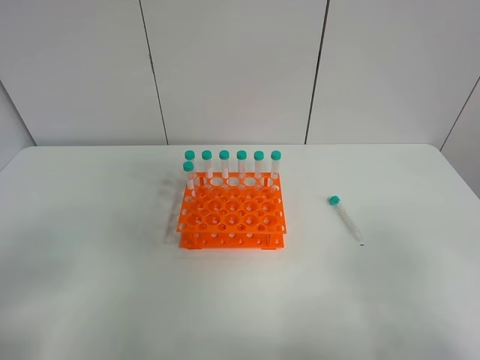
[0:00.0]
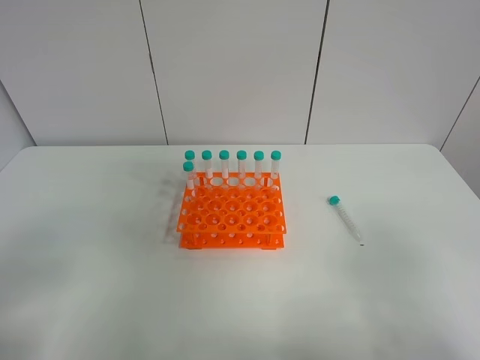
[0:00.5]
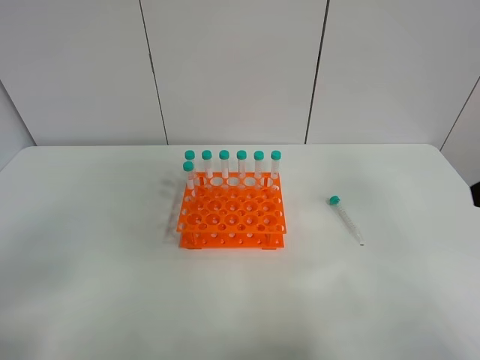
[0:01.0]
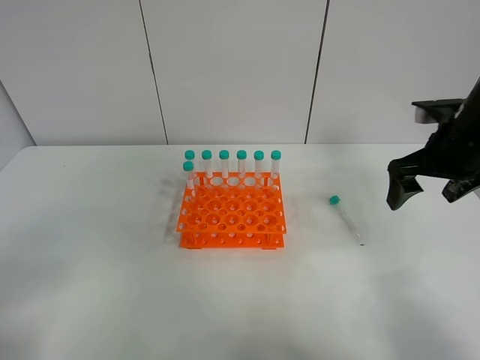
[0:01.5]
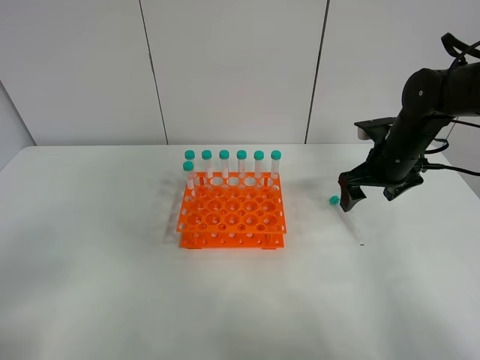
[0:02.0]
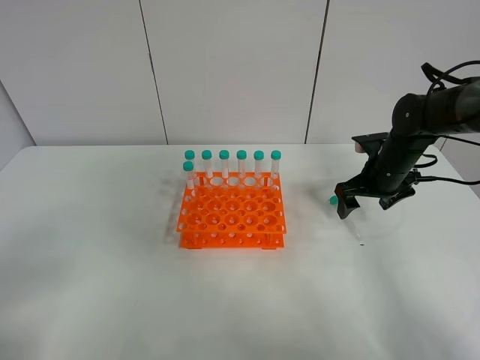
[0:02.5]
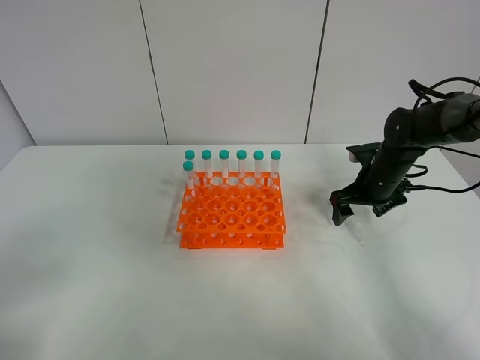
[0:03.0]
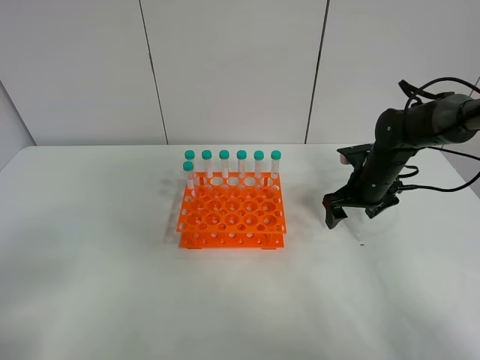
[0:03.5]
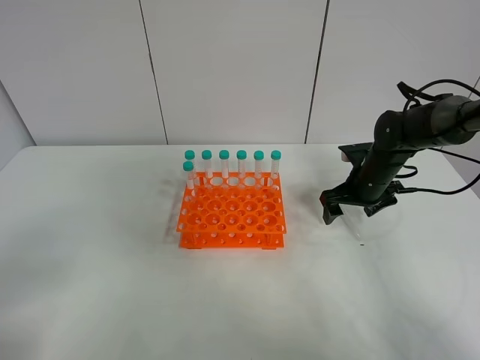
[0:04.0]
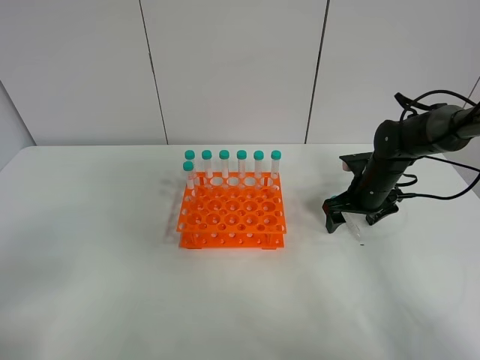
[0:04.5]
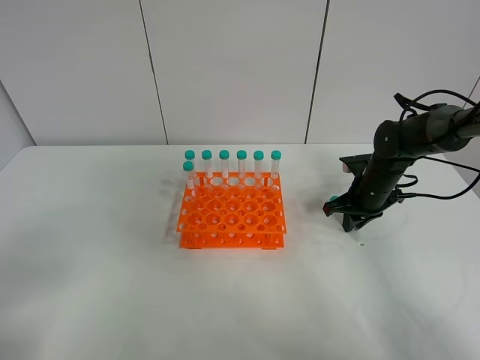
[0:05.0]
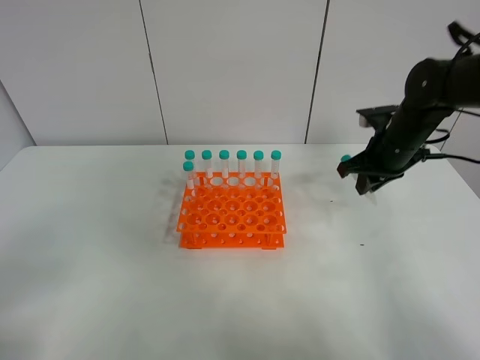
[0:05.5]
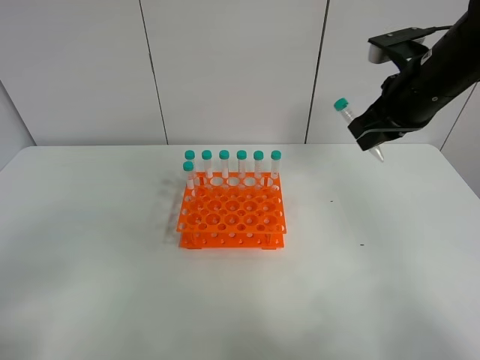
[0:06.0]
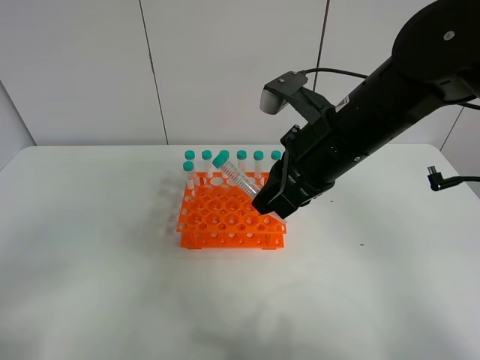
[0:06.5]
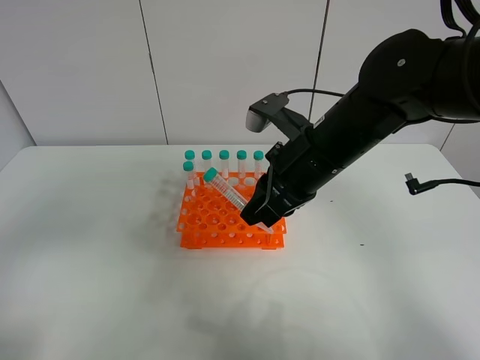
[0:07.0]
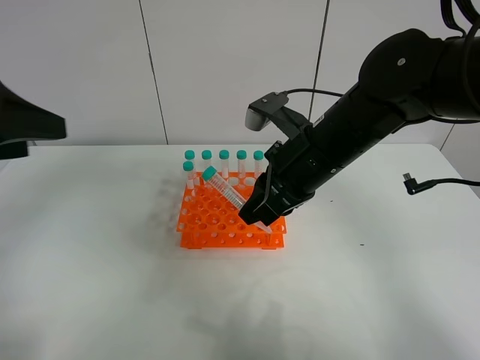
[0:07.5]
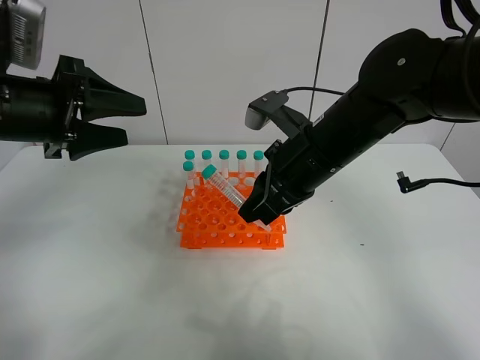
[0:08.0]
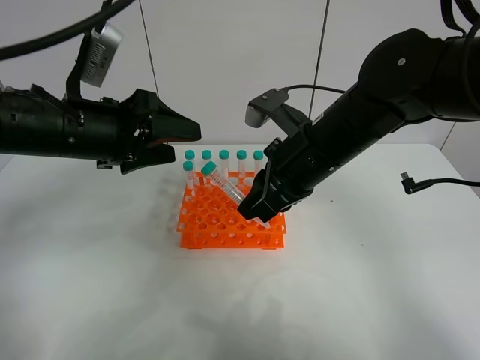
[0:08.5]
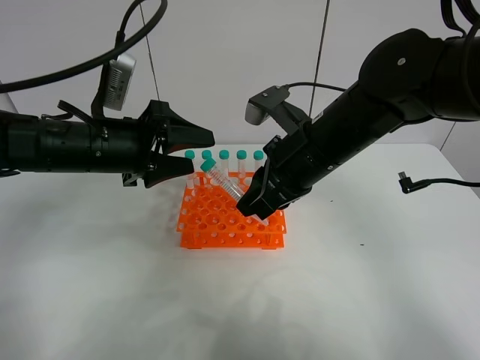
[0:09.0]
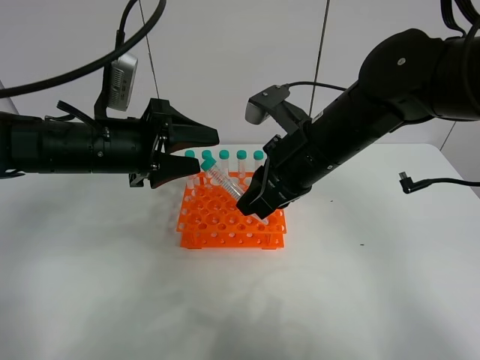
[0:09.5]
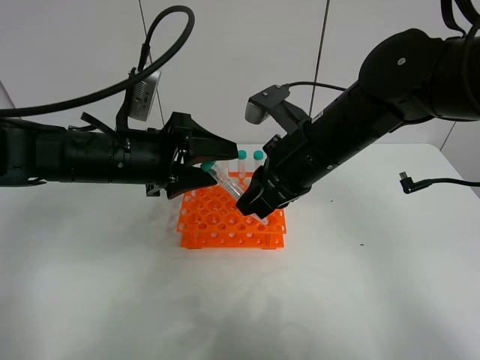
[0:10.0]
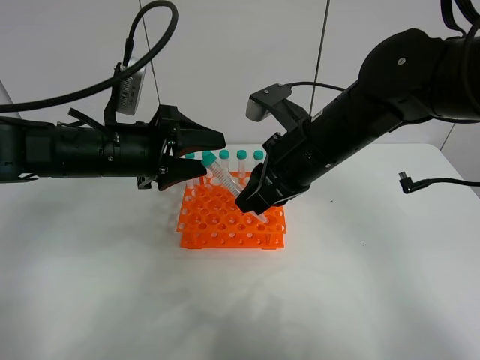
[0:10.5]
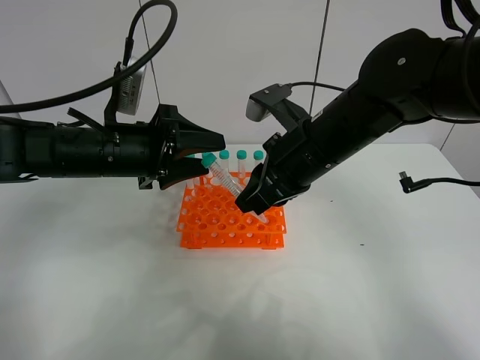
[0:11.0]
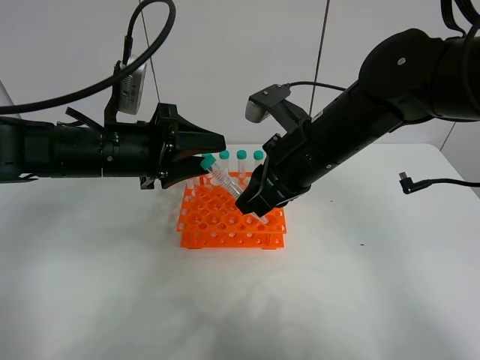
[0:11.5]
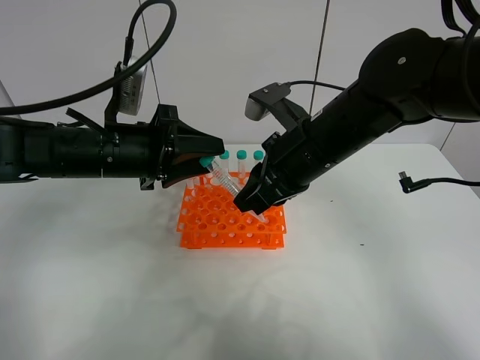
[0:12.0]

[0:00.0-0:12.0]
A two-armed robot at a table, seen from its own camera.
Task of the whole recording: Put the test tube on the table back onto the test tube rack.
Step, 0:00.0 to 0:05.5: Pick up the test tube with the right gripper.
0:00.0 to 0:02.0: The right gripper shifts roughly 40 cm forward.
0:02.0 to 0:04.0: The right gripper shifts approximately 5 cm downward.
0:04.0 to 0:06.0: The right gripper moves upward, about 20 cm, and closes up.
0:06.0 to 0:08.0: The left gripper goes approximately 25 cm forward. Meanwhile the right gripper travels to the left, backward and downward by some 15 cm.
0:08.0 to 0:10.0: The left gripper moves to the right and downward, roughly 10 cm.
0:10.0 to 0:12.0: The left gripper closes up.

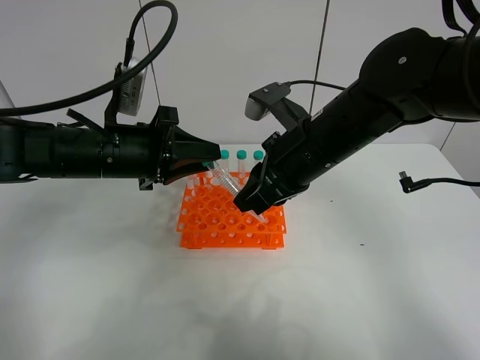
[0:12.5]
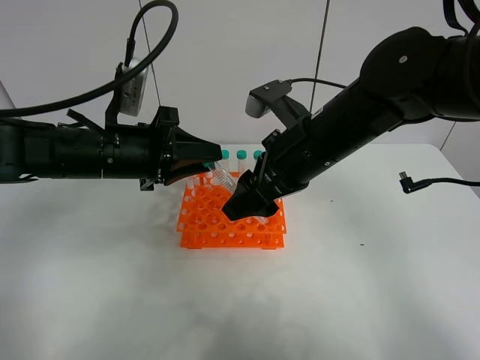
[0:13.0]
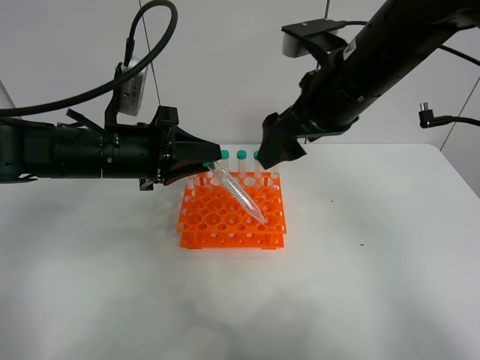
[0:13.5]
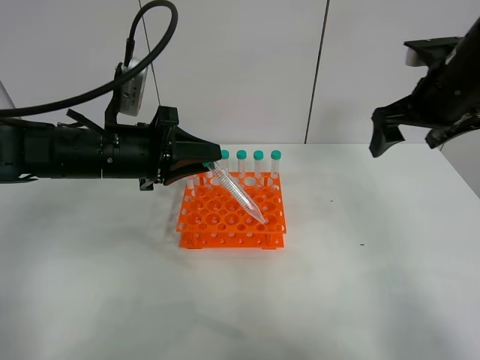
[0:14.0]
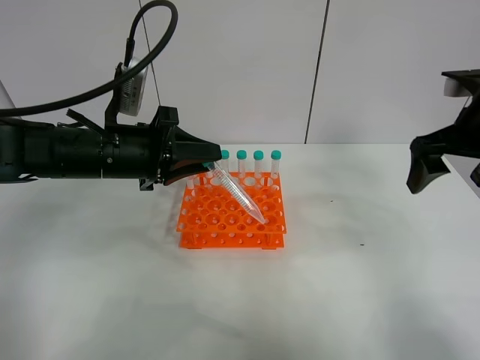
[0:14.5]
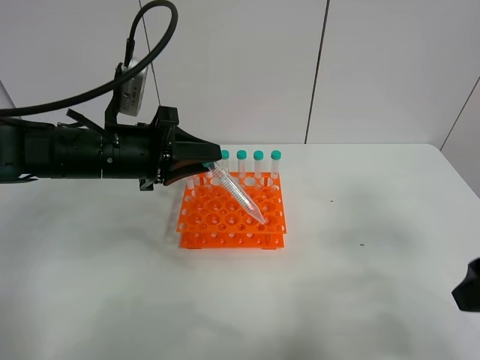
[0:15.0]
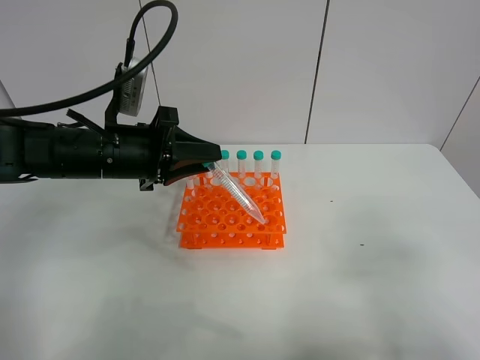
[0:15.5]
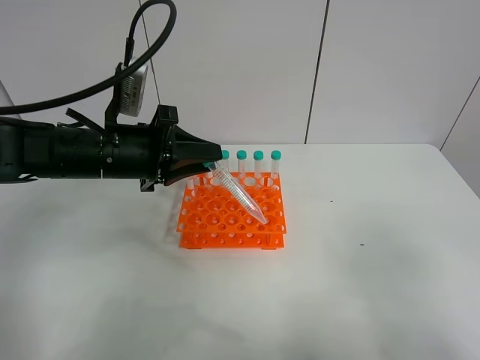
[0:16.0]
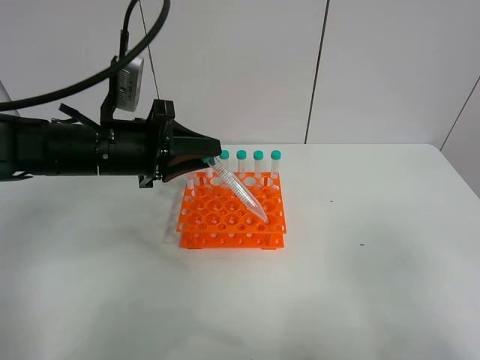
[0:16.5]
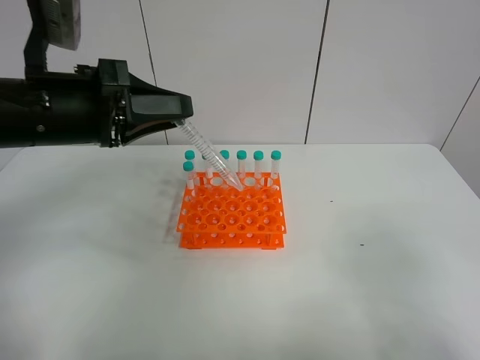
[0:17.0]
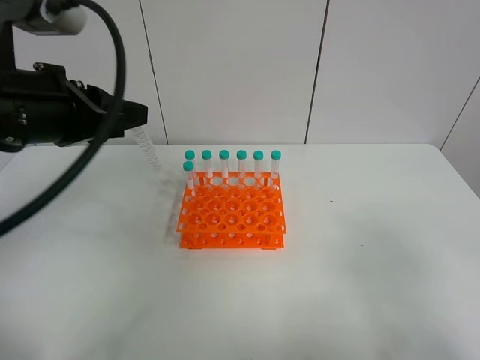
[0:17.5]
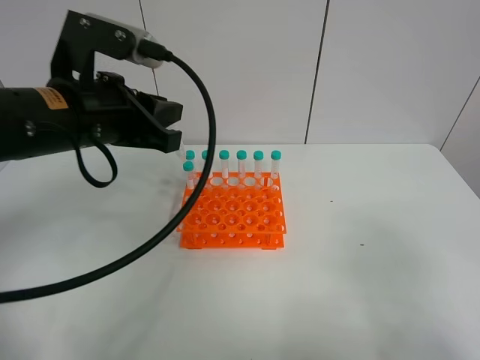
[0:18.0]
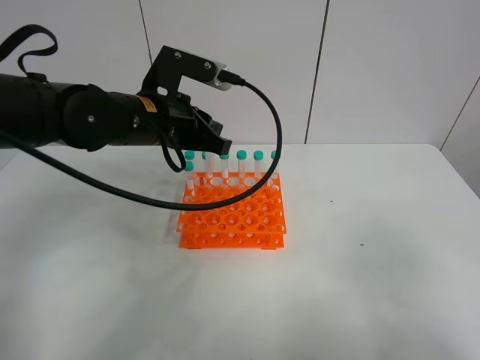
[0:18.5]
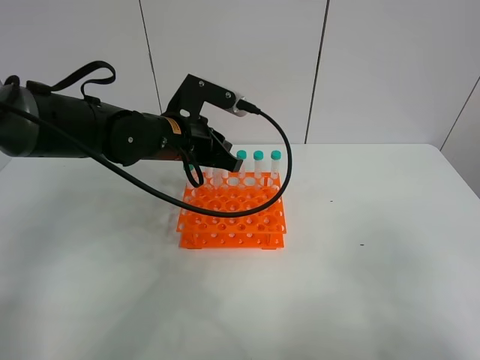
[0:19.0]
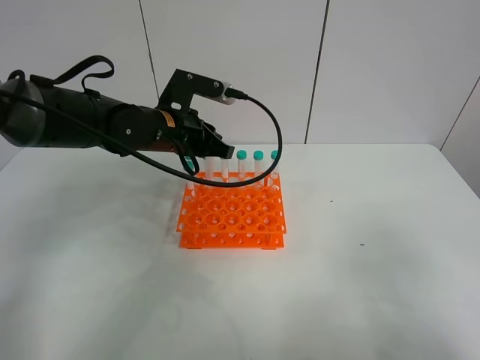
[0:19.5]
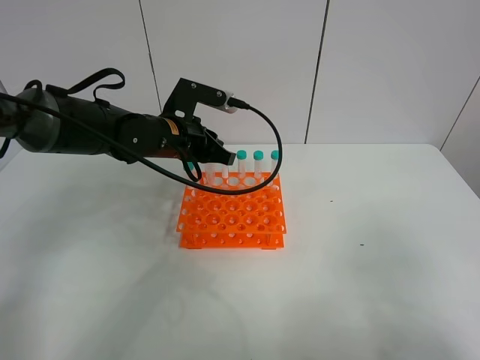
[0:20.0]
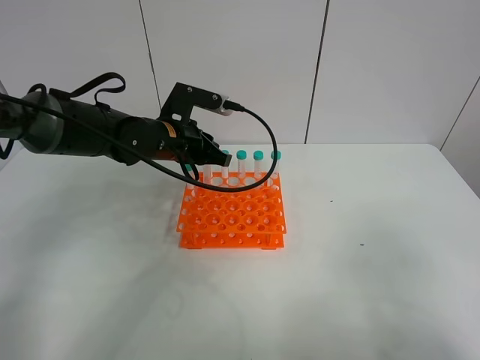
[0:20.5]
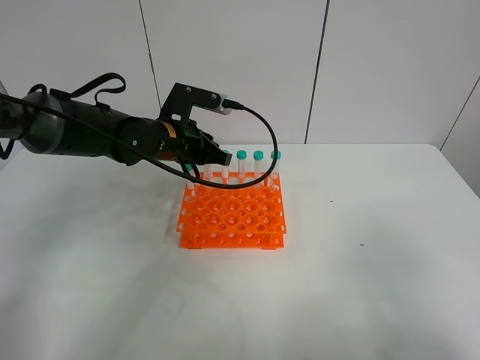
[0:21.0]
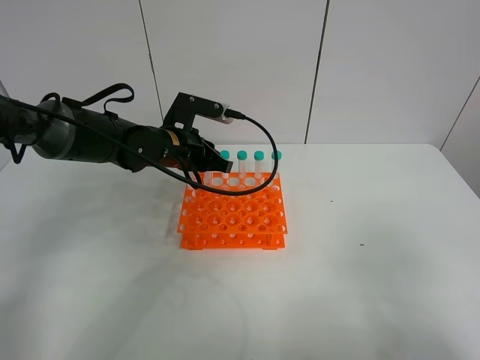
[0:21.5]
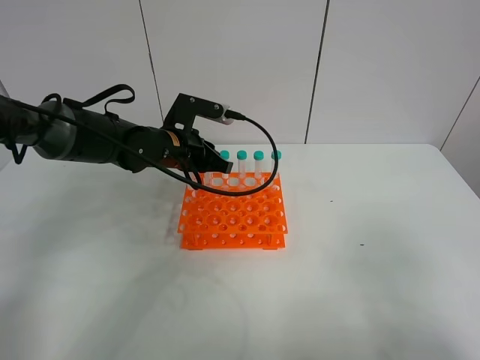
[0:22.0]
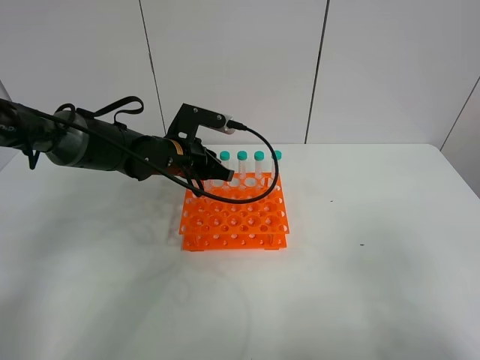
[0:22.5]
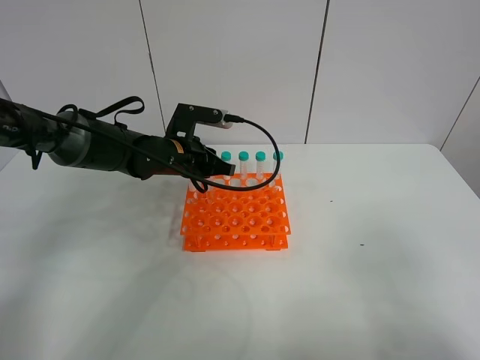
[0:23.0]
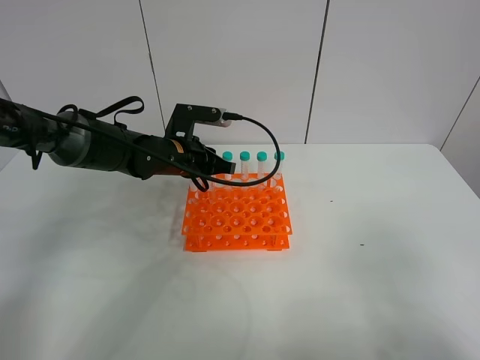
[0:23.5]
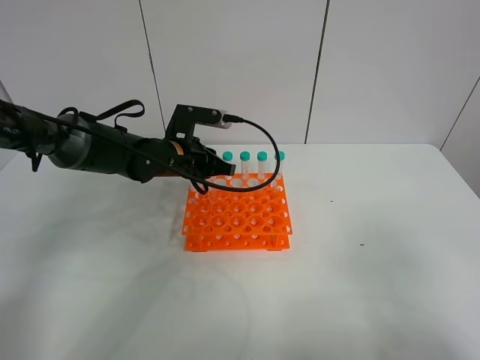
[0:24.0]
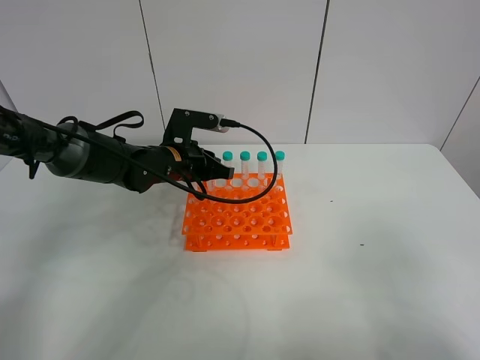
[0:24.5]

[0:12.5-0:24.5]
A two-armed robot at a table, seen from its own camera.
Task of the whole recording: Put the test tube on the table back onto the test tube rack.
0:12.5 to 0:14.5: The right gripper goes roughly 20 cm to the right, and opens.
0:14.5 to 0:16.5: The right gripper travels backward by about 30 cm.
0:16.5 to 0:18.5: The left gripper heads to the right, covering roughly 5 cm.
0:18.5 to 0:20.5: The left gripper travels downward and forward by approximately 10 cm.
0:20.5 to 0:24.5: There are only small adjustments of the grippers.

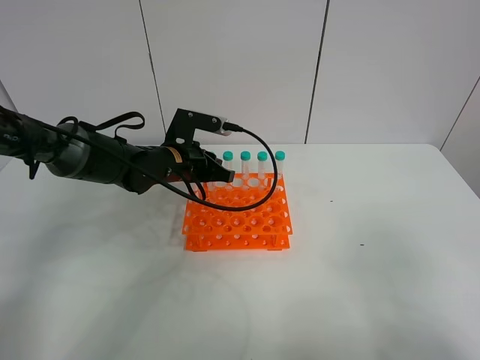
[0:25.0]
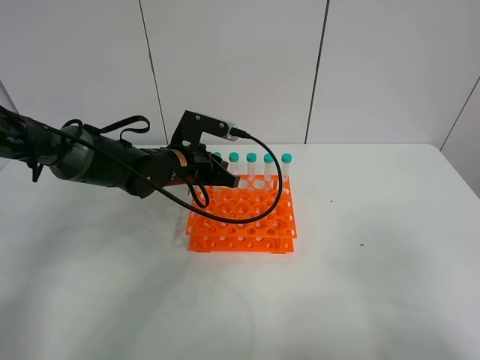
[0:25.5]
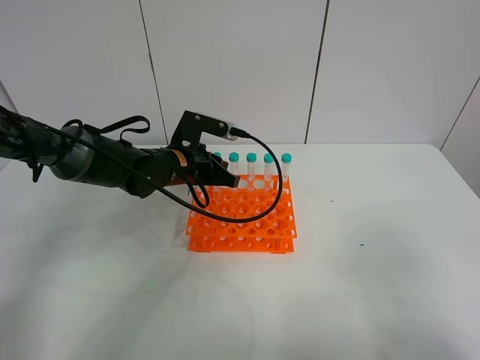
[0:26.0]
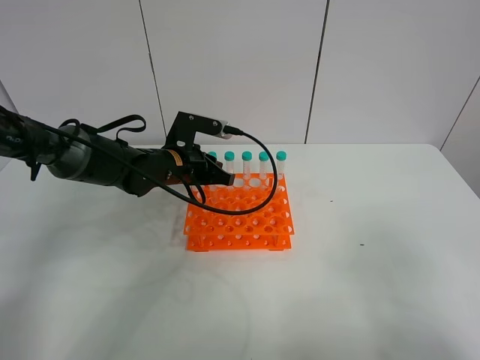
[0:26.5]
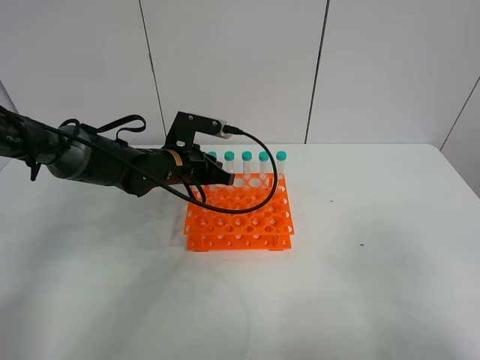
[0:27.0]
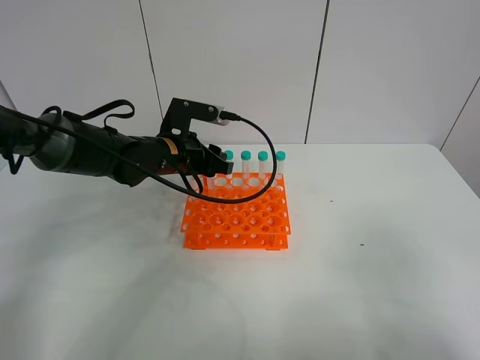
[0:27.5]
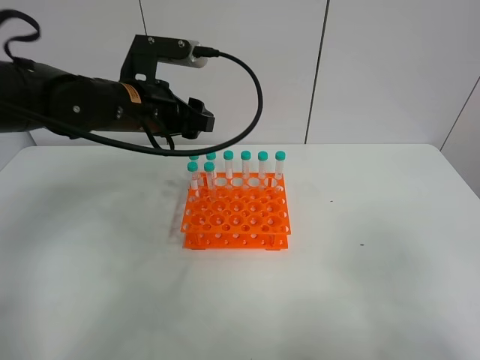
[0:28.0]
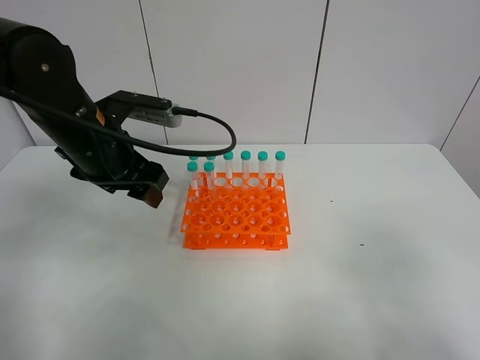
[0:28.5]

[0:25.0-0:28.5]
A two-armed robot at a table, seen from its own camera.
Task of the whole recording: Put the test tube on the table back onto the test tube rack.
Step, 0:25.0 to 0:28.0: Place the test tube on the test tube rack with the left gripper.
0:25.0 to 0:27.0: The two grippers keep their place.
0:27.0 to 0:28.5: The left gripper is displaced upward, backward and to the left by about 15 cm, and opens its fingers.
